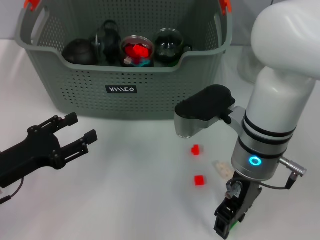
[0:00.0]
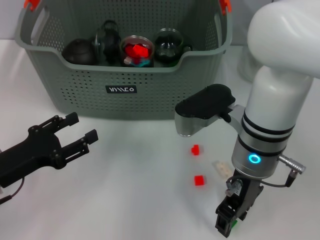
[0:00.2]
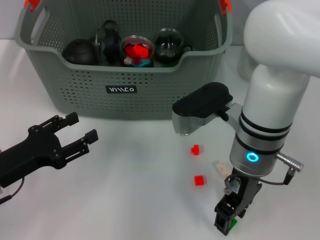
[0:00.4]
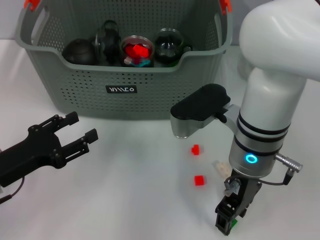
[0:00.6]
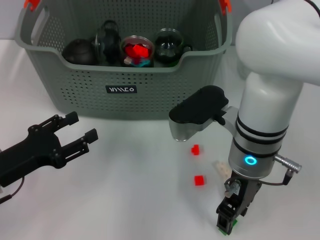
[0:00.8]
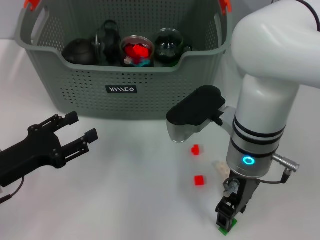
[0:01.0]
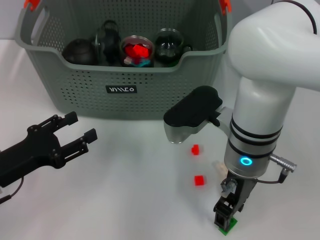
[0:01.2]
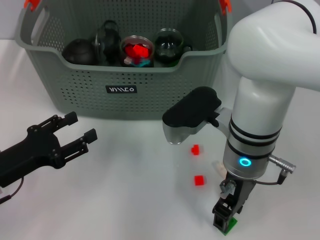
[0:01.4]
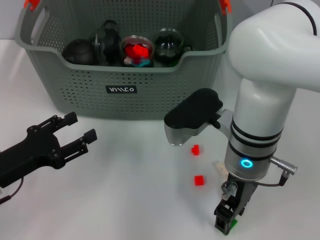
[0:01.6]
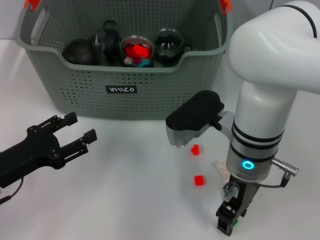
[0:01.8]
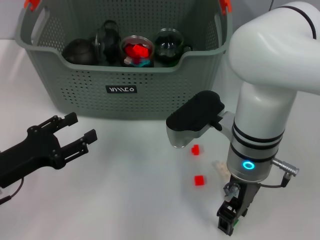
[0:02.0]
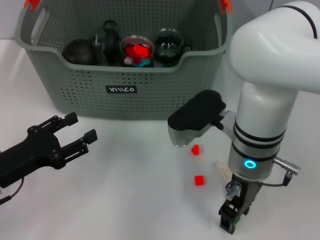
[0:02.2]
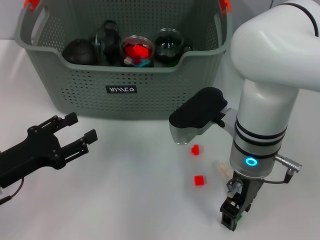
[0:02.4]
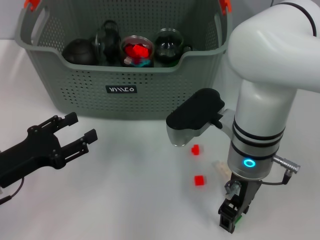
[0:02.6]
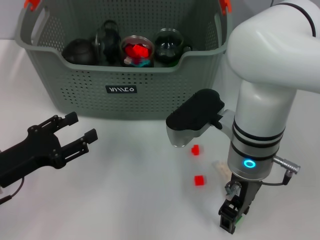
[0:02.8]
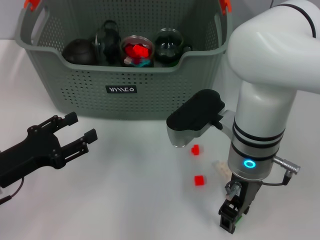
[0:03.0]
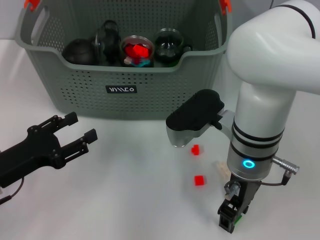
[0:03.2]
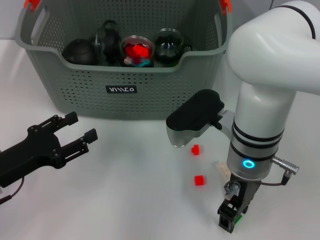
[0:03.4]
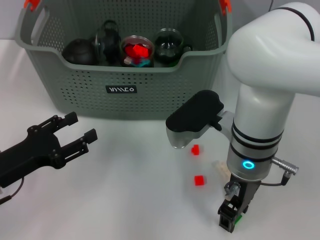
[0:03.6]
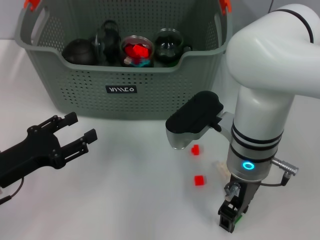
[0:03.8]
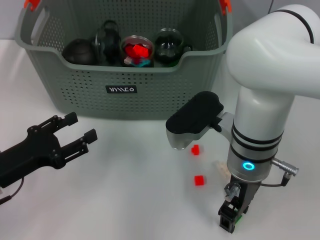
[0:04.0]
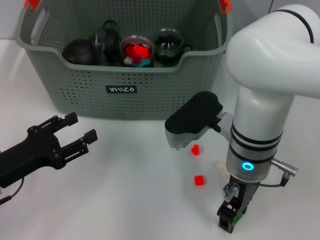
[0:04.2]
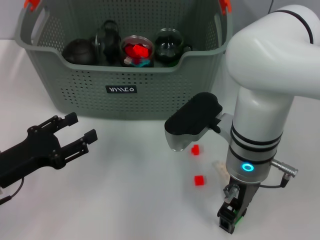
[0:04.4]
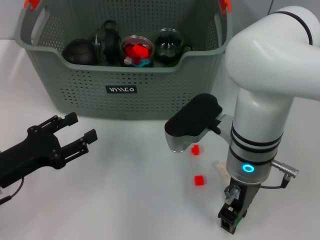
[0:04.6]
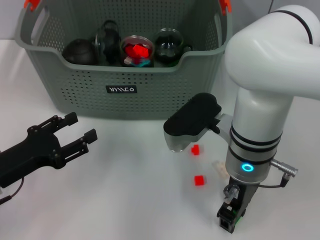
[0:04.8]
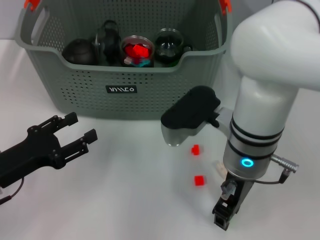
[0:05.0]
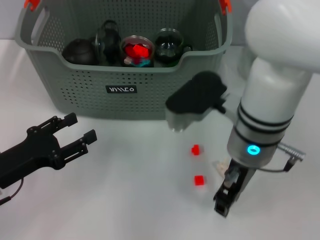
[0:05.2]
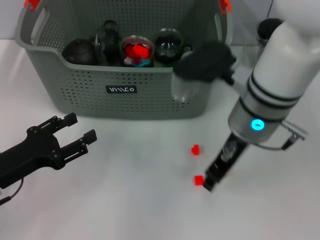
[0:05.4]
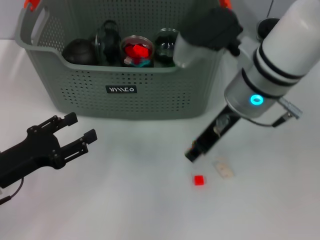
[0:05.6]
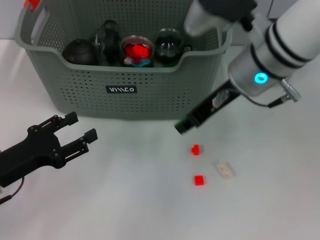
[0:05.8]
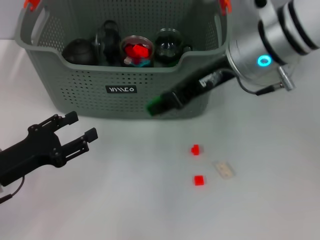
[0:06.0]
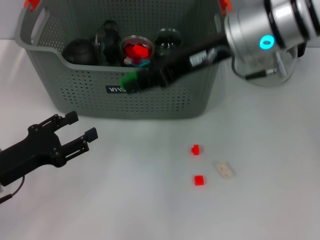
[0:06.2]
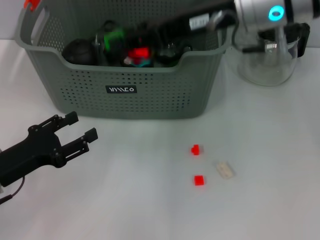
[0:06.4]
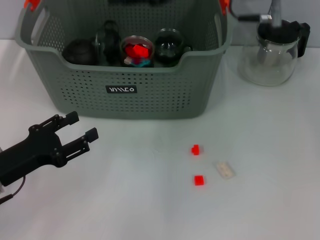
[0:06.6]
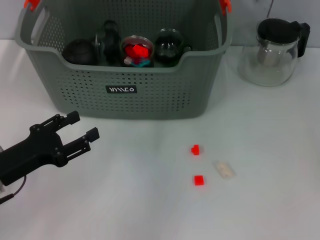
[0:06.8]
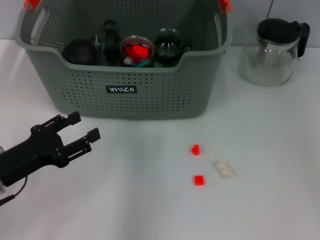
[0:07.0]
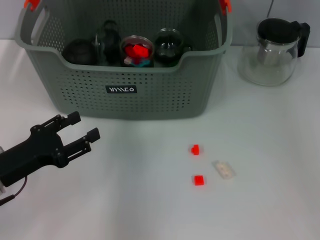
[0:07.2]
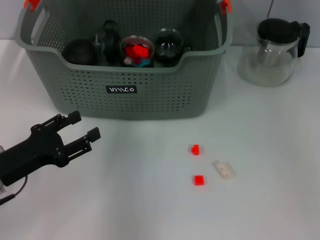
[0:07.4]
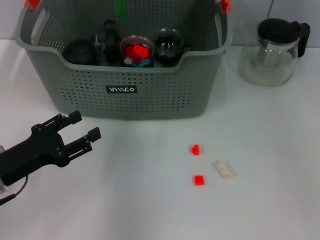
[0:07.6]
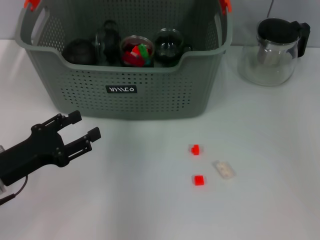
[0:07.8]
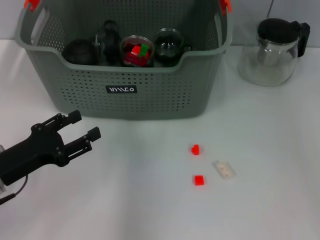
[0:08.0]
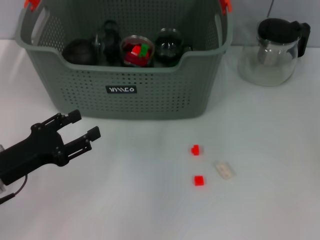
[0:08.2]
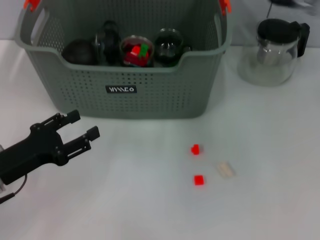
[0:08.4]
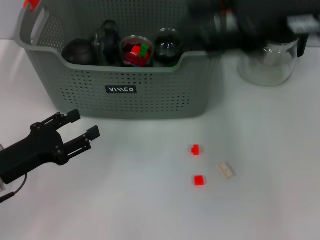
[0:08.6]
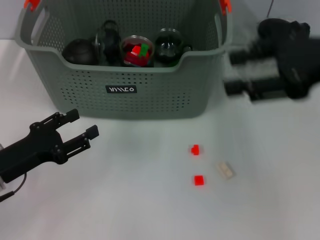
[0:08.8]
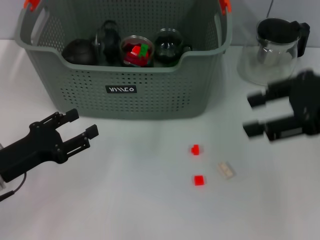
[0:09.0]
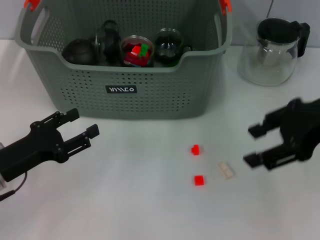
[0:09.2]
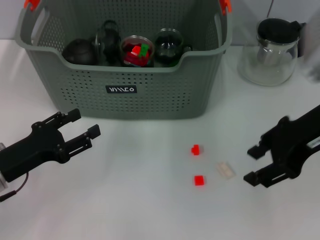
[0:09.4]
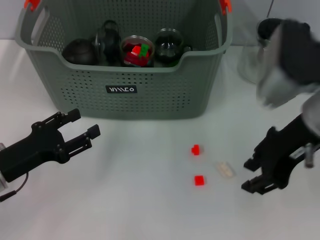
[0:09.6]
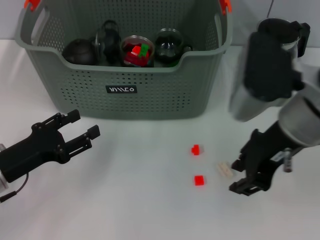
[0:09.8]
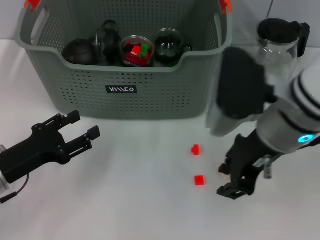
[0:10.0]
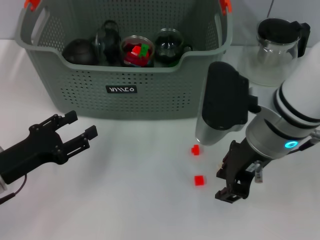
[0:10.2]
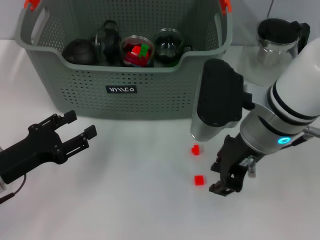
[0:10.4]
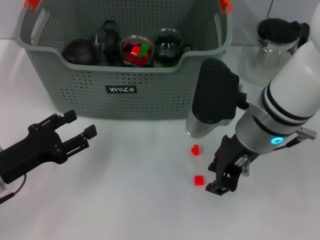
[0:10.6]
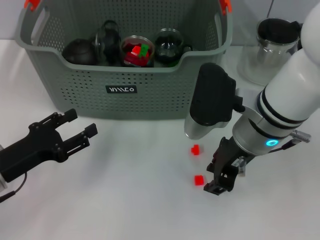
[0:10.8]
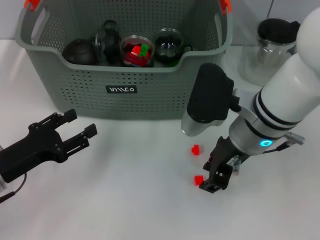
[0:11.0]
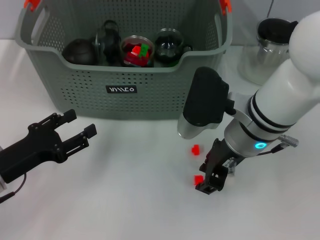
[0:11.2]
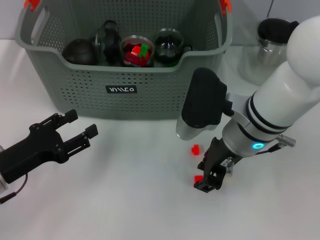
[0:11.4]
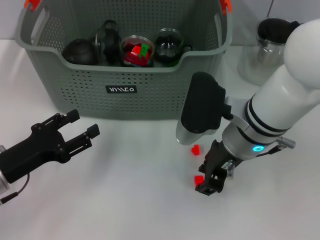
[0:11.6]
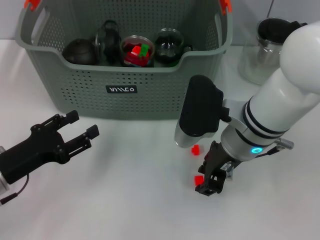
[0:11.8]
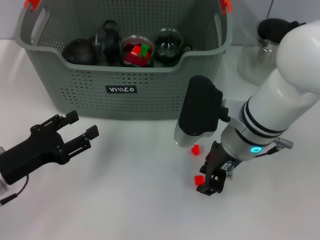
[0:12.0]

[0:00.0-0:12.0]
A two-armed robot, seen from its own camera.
Task of the whole recording: pick up the teacup on the table and place it into the storage bin, pick up the block on the table and place it into the storage bin.
Step, 0:00.0 to 0:04.8: Grasp the green block with right gripper.
Step, 0:05.0 to 0:07.6: Place the green block in the storage box with right gripper.
0:00.0 to 0:01.6: The grippers make only small movements.
0:01.6 to 0:04.4: The two grippers keep their place.
0:04.4 to 0:06.0: The right gripper travels upward and forward by roughly 10 cm.
0:06.0 to 0:07.6: The right gripper travels forward and to the left by approximately 10 cm.
0:07.6 to 0:09.0: The right gripper shifts roughly 25 cm to the right and backward, and opens its fingers.
0:09.0 to 0:10.4: The right gripper is displaced to the left and downward by approximately 15 cm, and closes.
0:10.4 to 0:12.0: The right gripper heads downward, covering some 5 cm.

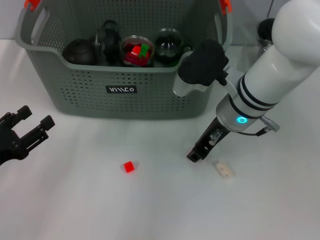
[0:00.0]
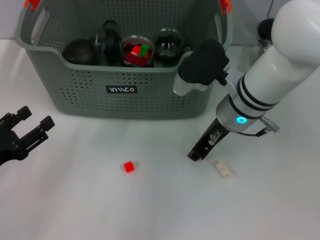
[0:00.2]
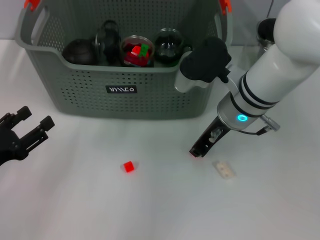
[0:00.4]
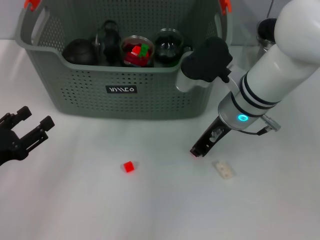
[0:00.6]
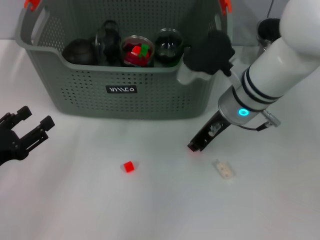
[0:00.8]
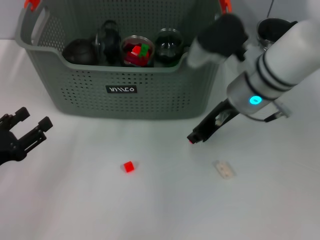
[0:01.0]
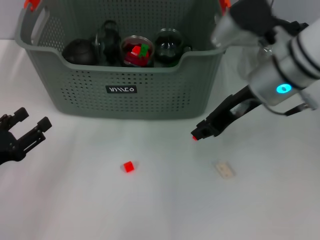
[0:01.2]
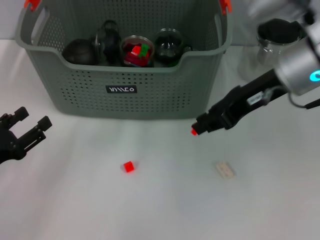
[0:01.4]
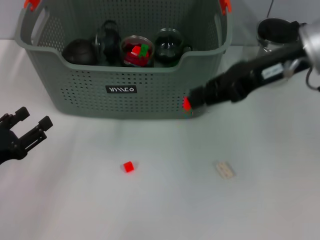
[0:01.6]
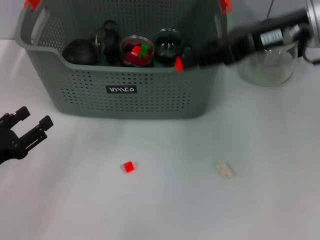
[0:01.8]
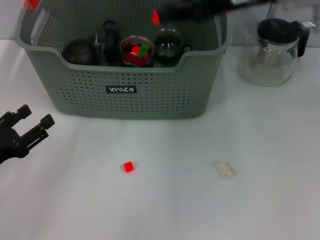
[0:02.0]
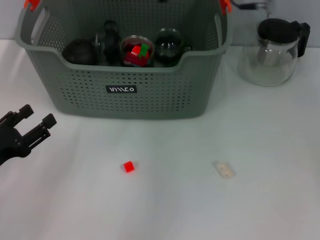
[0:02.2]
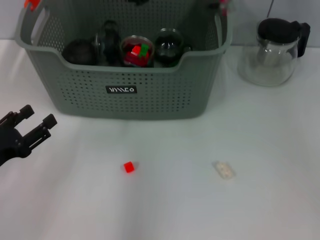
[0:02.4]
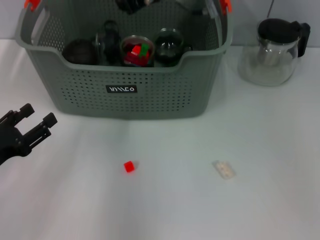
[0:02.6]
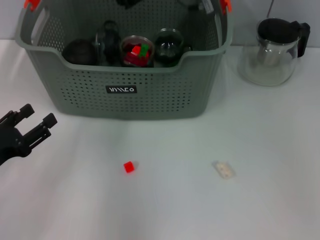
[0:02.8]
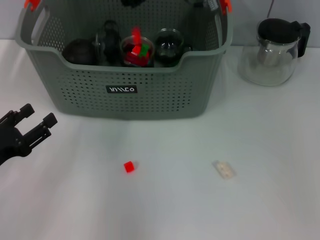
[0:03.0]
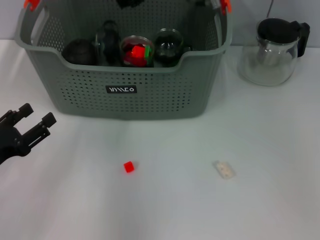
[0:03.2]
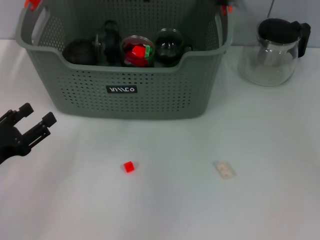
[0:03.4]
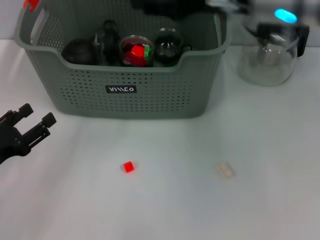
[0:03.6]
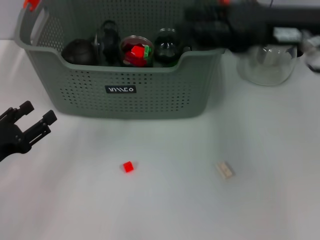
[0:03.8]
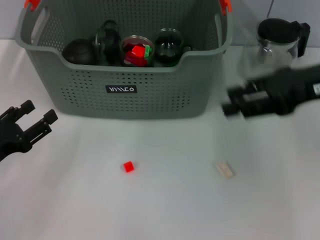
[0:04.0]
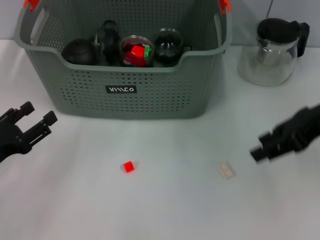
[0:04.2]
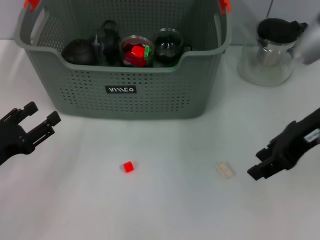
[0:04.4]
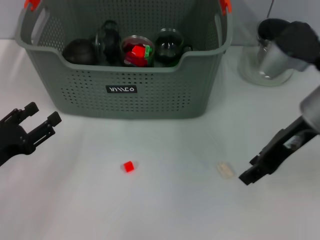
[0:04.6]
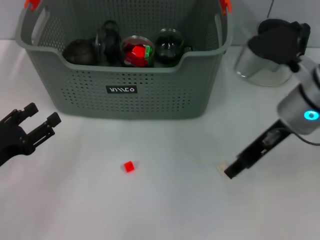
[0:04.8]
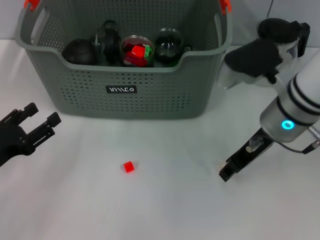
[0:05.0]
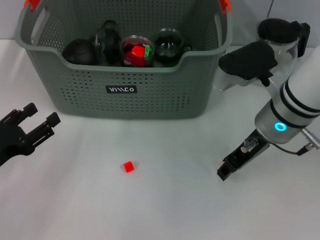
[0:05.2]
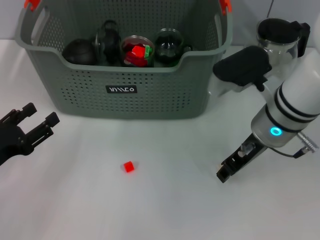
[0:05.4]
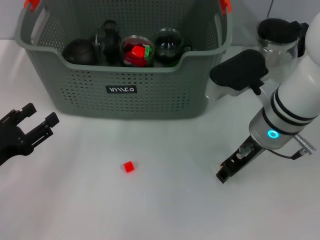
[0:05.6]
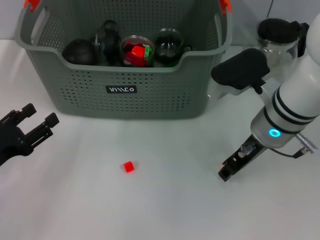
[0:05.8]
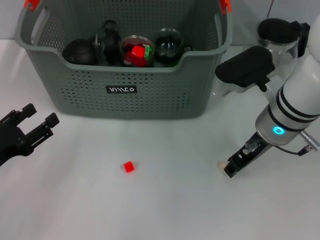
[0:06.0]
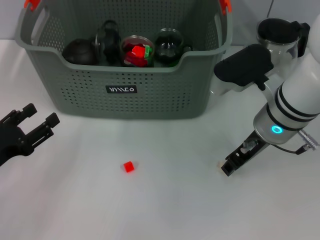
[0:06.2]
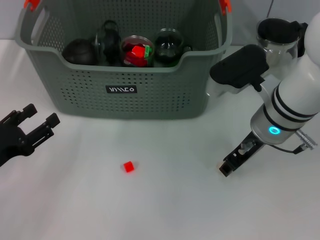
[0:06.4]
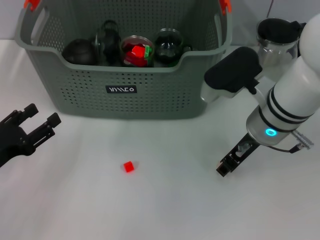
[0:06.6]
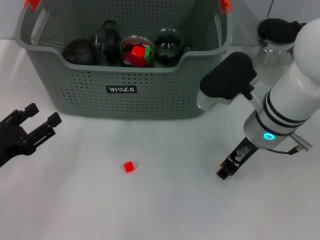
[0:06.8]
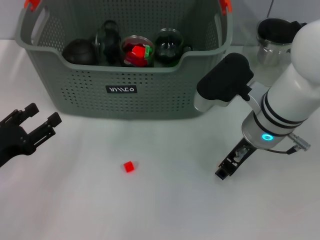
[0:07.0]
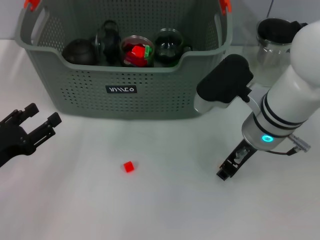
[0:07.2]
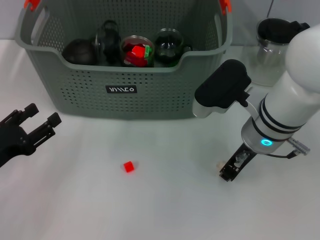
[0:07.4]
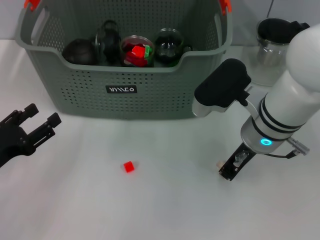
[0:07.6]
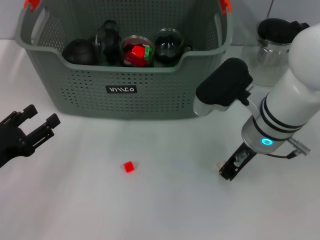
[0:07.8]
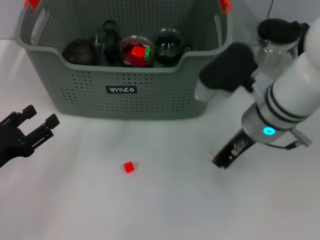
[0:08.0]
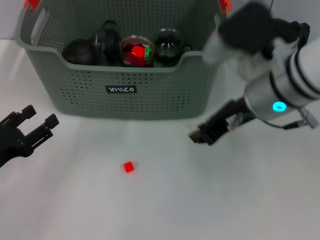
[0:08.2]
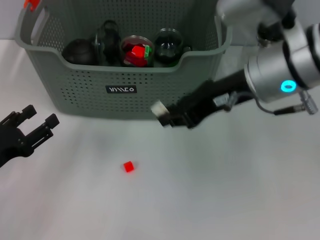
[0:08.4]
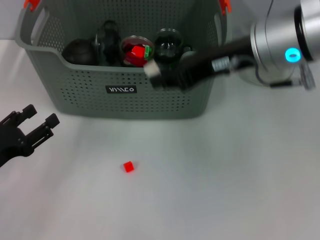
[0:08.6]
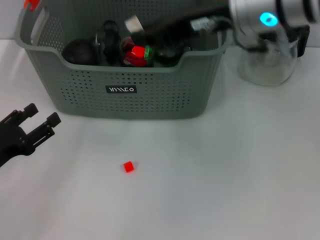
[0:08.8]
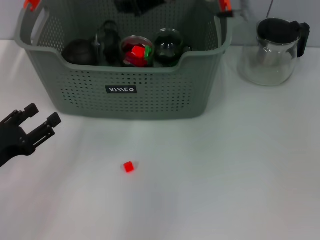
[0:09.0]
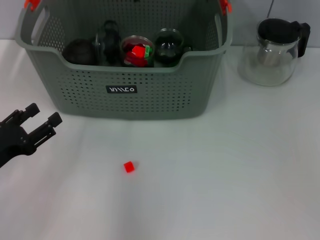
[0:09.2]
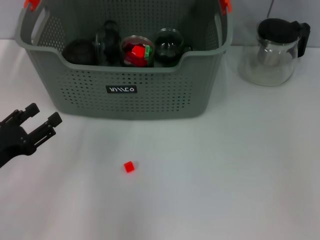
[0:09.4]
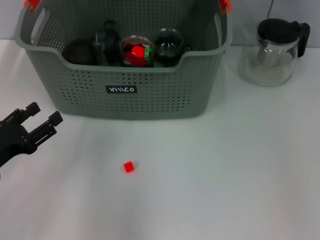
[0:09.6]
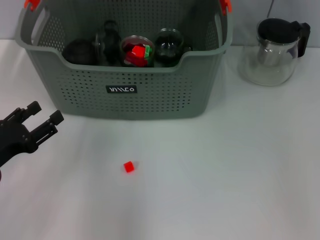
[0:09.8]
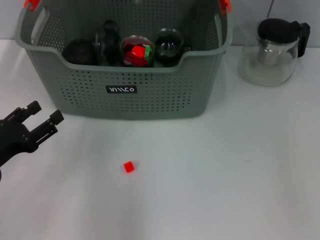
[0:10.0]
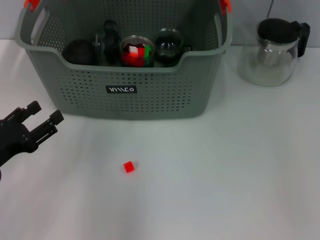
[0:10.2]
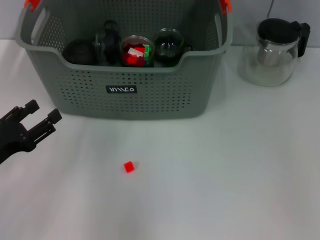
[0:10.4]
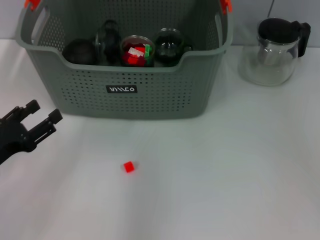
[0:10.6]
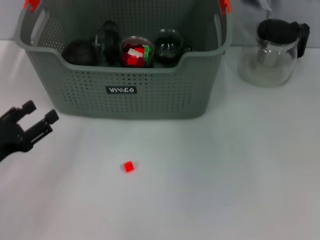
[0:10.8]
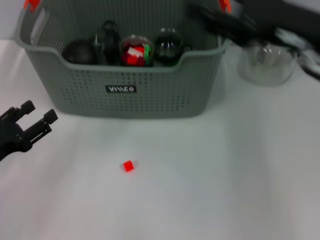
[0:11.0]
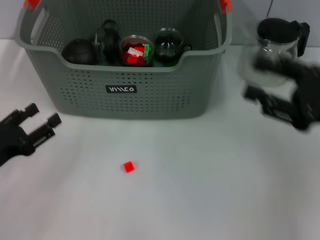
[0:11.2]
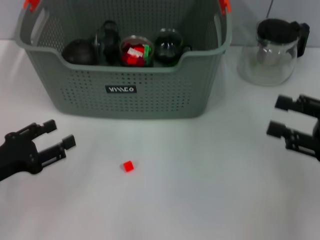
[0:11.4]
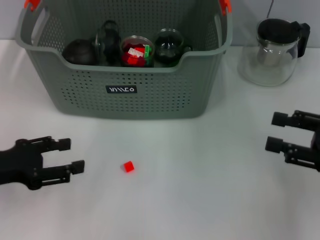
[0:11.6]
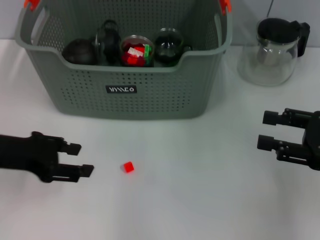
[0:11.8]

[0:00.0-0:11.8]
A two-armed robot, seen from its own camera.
Task of the whole recording: pick up the teacup on the table and place it into the storage bin, pick up the block on the table and place it into the storage bin.
Step, 0:00.8 to 0:03.0: Place the orange block in the storage box with right gripper.
Step, 0:03.2 to 0:07.6: Grasp the white block with right gripper.
Step, 0:07.8 to 0:10.2: Place the white block in the storage box with right gripper.
0:00.0 to 0:01.4: The right gripper travels upward and to the right by roughly 10 cm.
0:01.4 to 0:03.0: The right gripper is displaced to the left and forward by some 15 cm.
0:03.0 to 0:04.4: The right gripper heads to the right and backward, covering some 25 cm, and opens its fingers.
0:04.4 to 0:06.0: The right gripper is displaced downward and to the left by about 10 cm.
0:06.0 to 0:07.4: The grippers stay close to where they were, moving slightly.
0:07.4 to 0:08.8: The right gripper heads upward, covering roughly 15 cm.
0:08.8 to 0:10.4: The right gripper heads forward and to the left, covering approximately 15 cm.
0:10.4 to 0:11.8: The right gripper shifts roughly 40 cm to the right, backward and downward, and opens up. The left gripper is displaced upward by some 10 cm.
